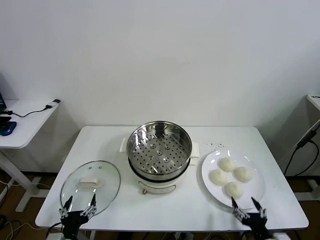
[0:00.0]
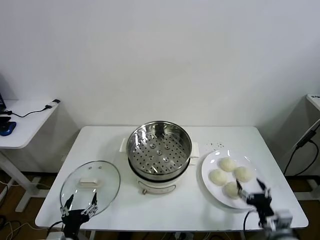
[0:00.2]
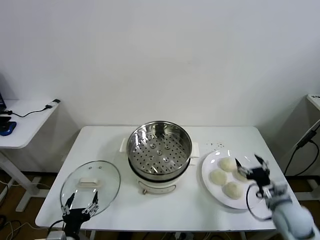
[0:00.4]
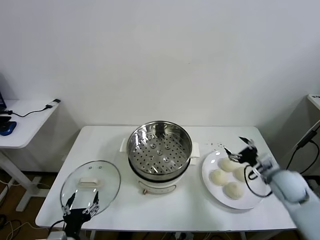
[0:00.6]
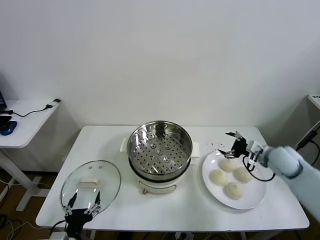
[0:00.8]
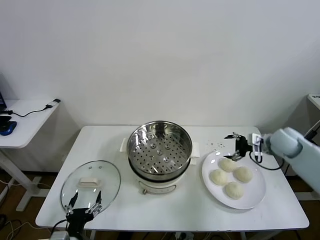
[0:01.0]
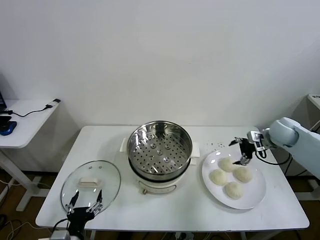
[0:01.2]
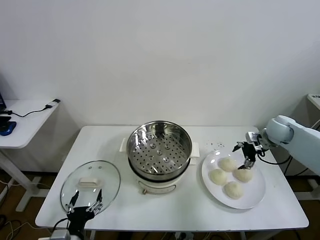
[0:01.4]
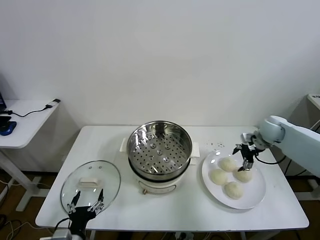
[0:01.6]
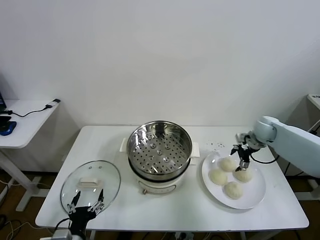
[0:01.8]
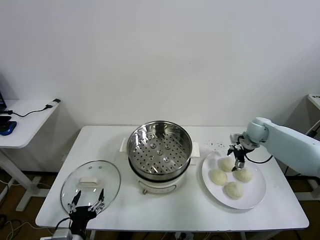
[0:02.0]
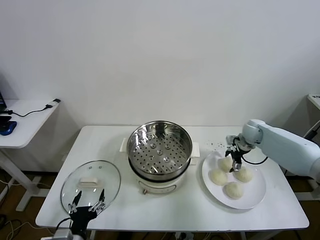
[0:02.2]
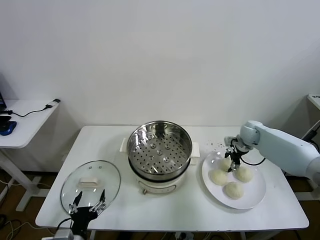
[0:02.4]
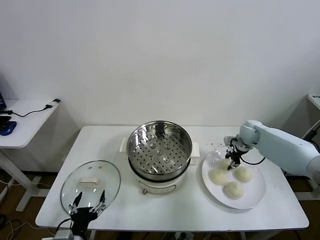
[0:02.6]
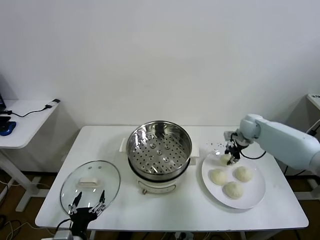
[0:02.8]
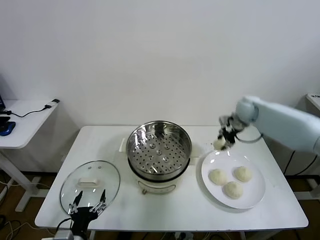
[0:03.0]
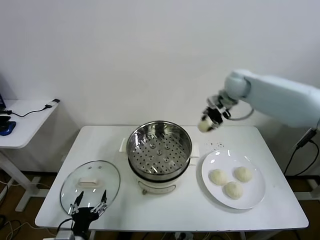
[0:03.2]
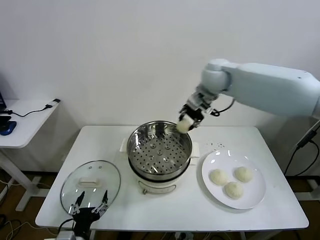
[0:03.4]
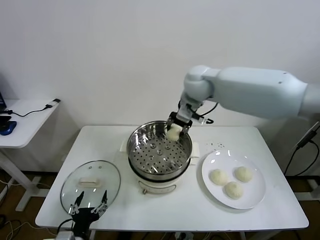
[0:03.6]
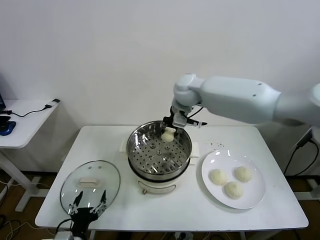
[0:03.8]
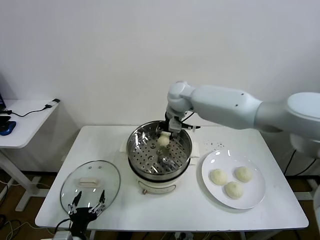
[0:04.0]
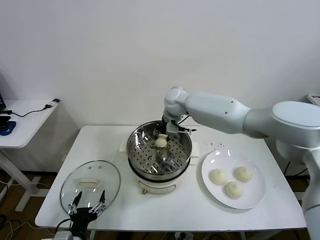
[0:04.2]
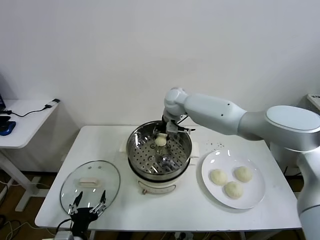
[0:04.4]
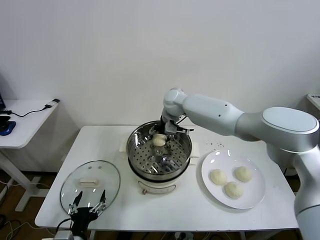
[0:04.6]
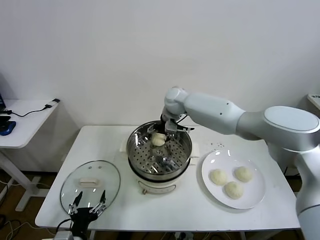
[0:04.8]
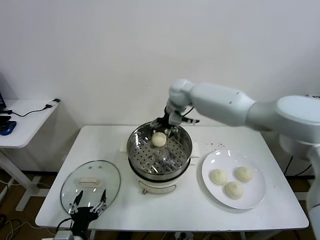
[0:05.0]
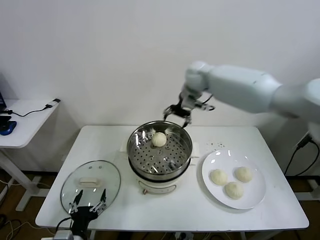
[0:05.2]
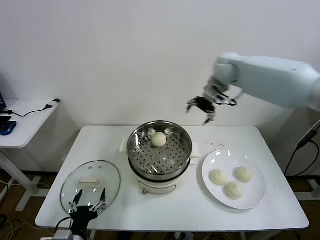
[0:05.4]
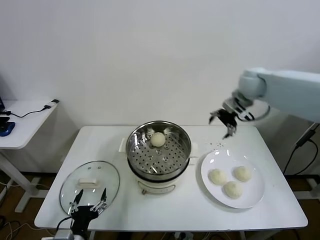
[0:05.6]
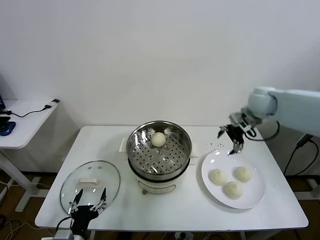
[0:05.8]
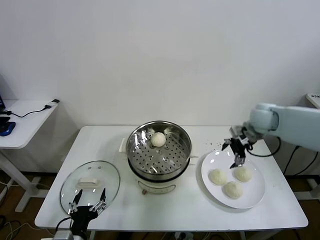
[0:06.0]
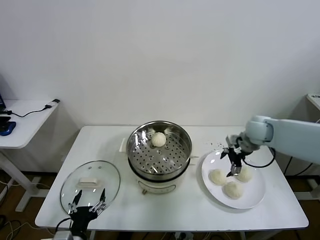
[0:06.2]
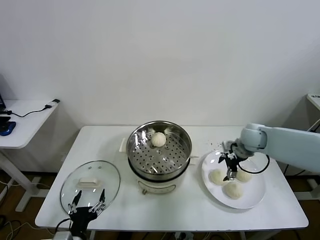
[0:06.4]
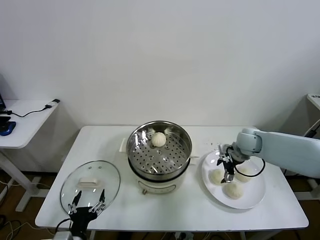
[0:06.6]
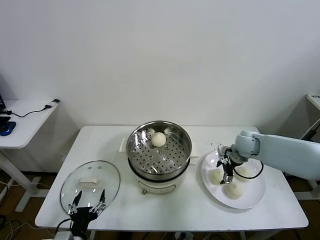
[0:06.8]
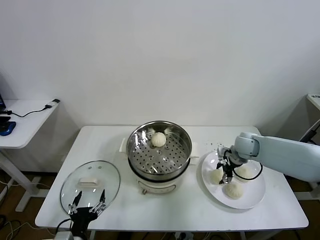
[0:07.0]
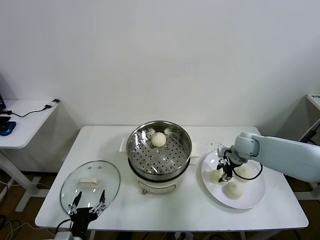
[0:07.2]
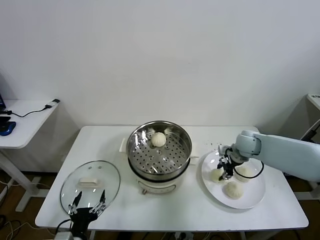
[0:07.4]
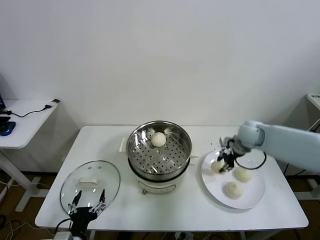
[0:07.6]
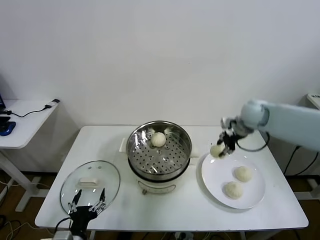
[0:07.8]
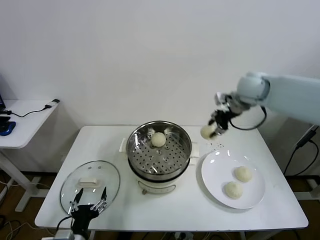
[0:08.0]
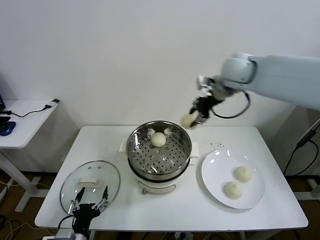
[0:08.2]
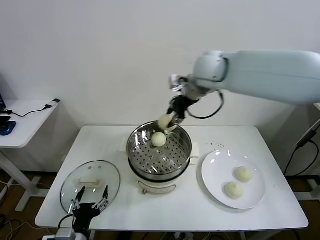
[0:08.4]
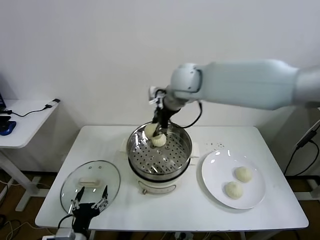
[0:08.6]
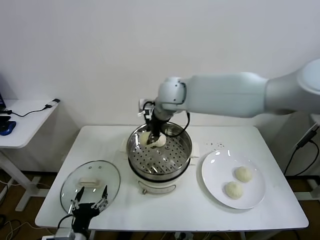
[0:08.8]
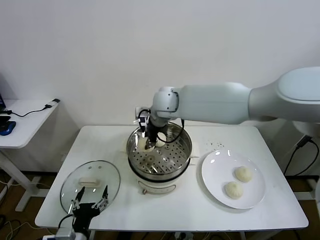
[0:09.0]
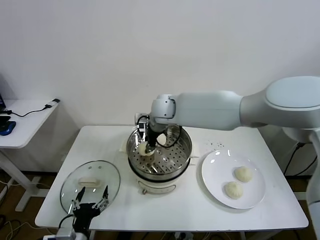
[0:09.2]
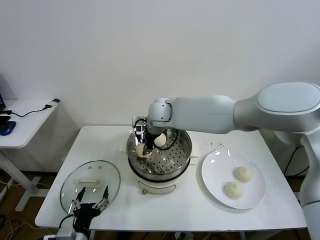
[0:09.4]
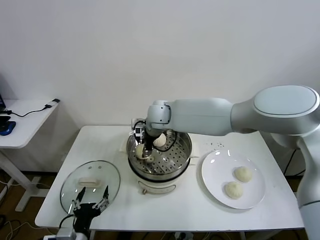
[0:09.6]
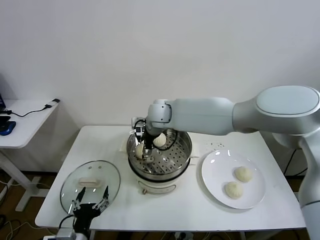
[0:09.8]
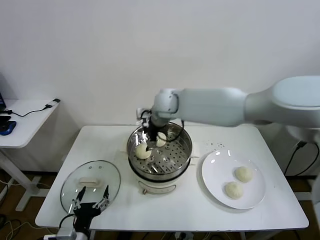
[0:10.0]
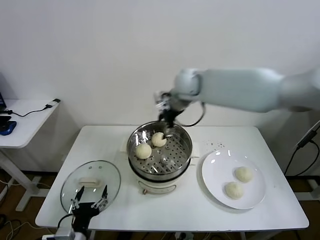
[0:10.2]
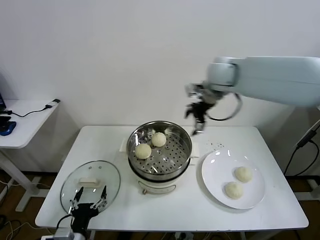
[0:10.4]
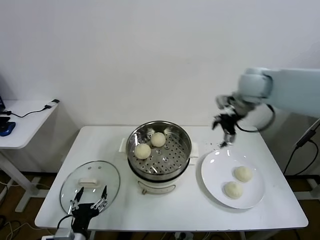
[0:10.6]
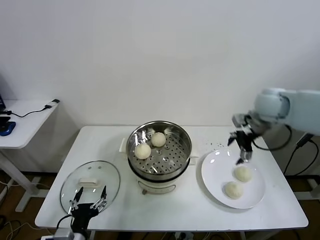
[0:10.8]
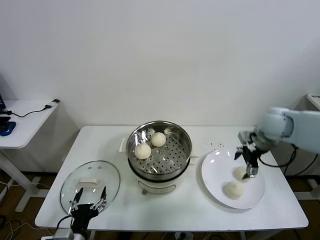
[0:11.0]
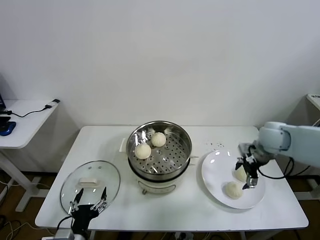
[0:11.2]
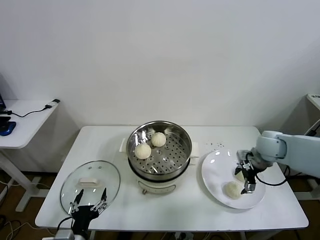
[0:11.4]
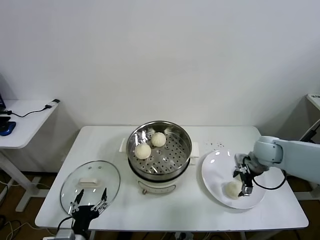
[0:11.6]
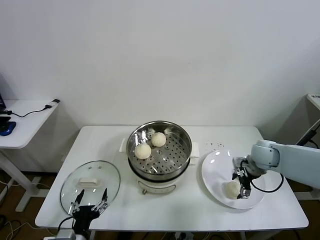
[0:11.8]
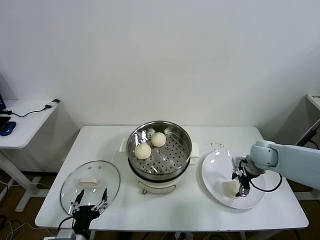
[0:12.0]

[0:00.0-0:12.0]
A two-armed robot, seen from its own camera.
Task of the whole recording: take steamed baozi put them in steamer then cover it.
Step, 0:00.0 to 0:02.4: Grasp the baozi in the plate with right gripper.
Step, 0:02.6 to 0:04.6: Place the baozi on the steamer with right gripper.
Step, 0:05.0 to 0:07.0: Grasp the baozi in the plate with right gripper.
Step, 0:07.4 to 0:09.8: Place the baozi on the steamer with right gripper.
0:01.6 to 0:03.0: The right gripper is displaced upward, to the left and forward by approximately 15 cm, and closes up.
0:03.0 to 0:04.4: The right gripper heads to the left, covering some 25 cm.
0:04.4 to 0:06.0: The right gripper heads to the right, covering approximately 30 cm, and opens.
0:06.0 to 0:07.6: The right gripper closes up.
0:07.6 to 0:09.0: The right gripper is displaced to the left by some 30 cm.
0:09.0 to 0:10.4: The right gripper shifts some 20 cm to the right and upward, and opens up.
0:10.4 to 0:12.0: The right gripper moves downward and to the right, some 30 cm.

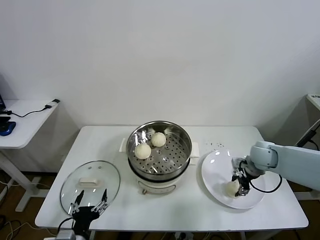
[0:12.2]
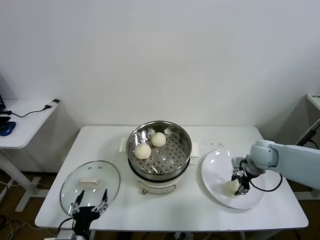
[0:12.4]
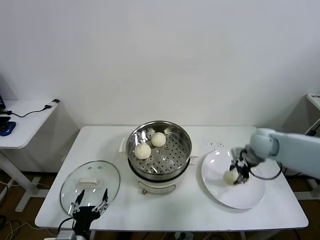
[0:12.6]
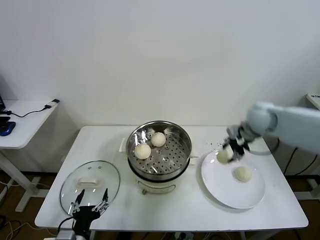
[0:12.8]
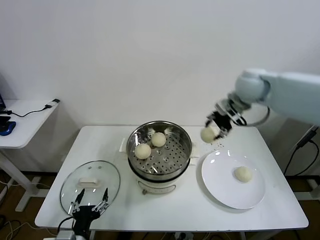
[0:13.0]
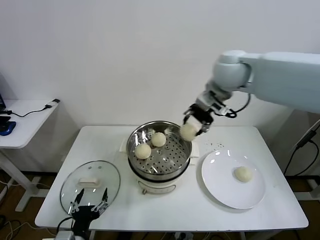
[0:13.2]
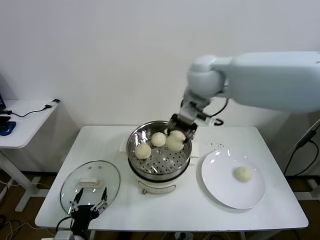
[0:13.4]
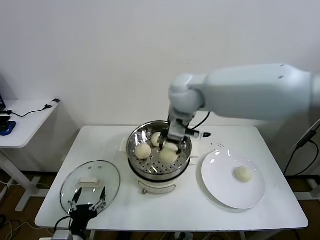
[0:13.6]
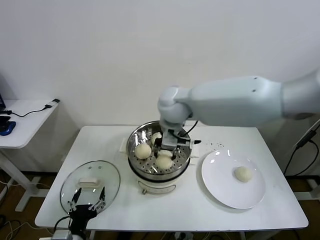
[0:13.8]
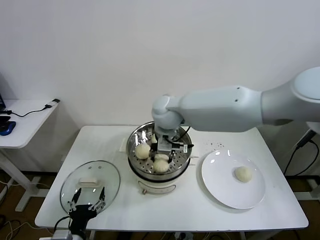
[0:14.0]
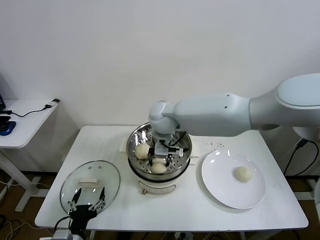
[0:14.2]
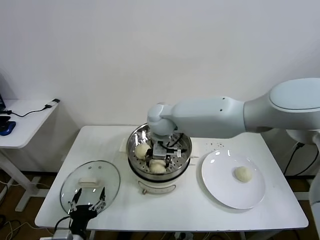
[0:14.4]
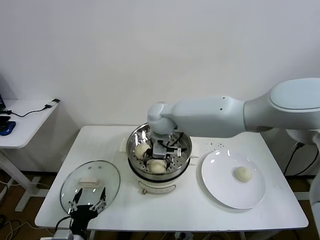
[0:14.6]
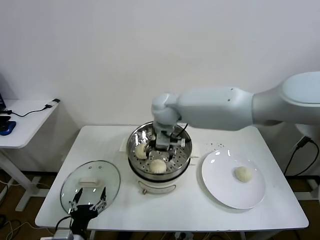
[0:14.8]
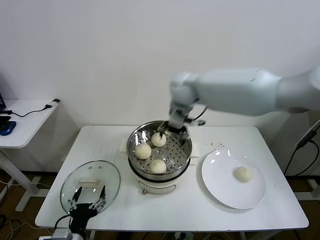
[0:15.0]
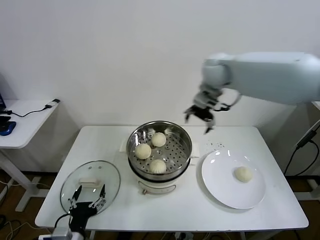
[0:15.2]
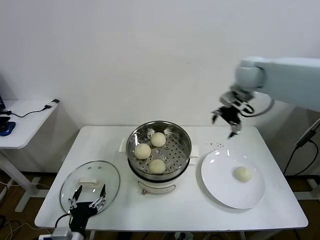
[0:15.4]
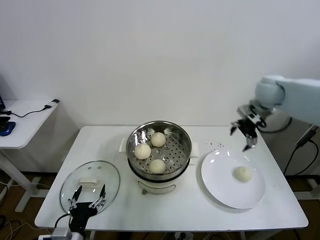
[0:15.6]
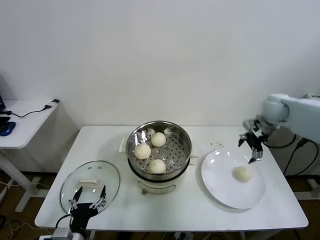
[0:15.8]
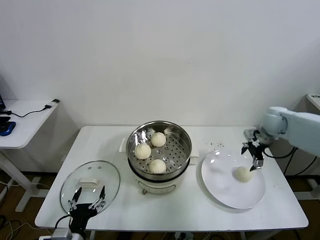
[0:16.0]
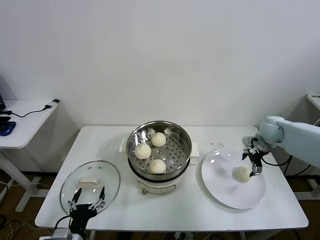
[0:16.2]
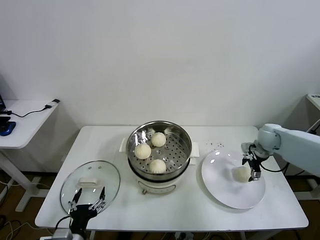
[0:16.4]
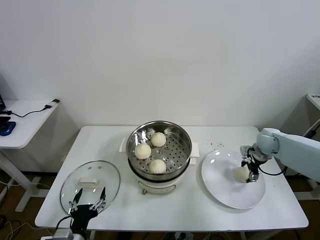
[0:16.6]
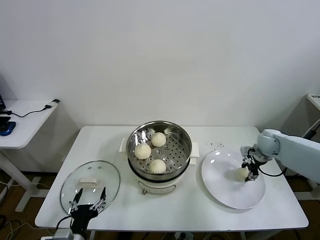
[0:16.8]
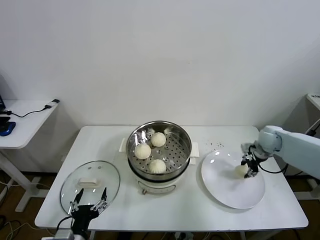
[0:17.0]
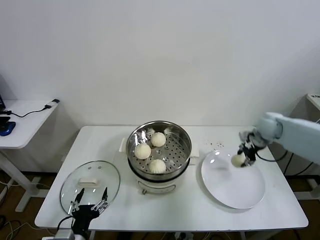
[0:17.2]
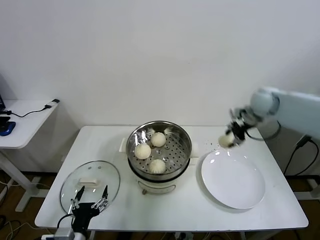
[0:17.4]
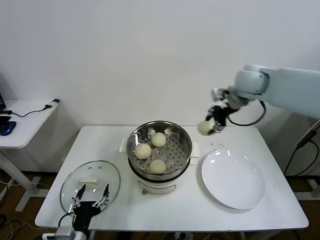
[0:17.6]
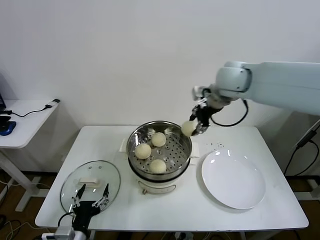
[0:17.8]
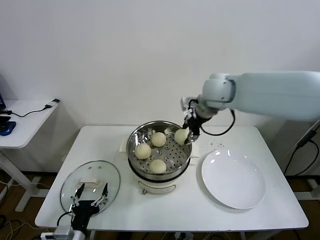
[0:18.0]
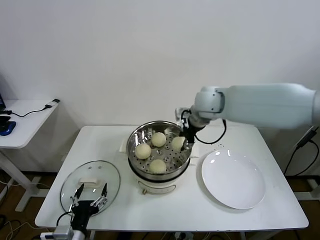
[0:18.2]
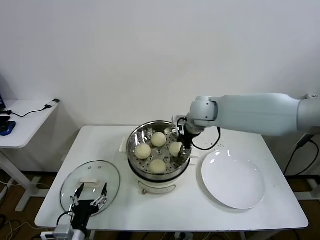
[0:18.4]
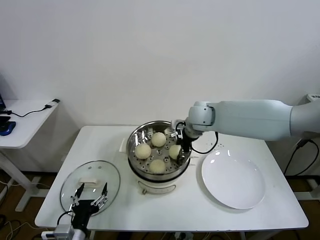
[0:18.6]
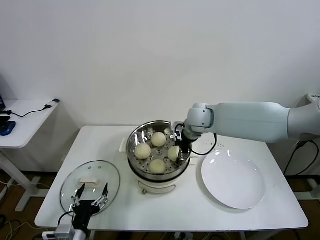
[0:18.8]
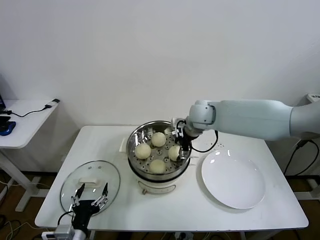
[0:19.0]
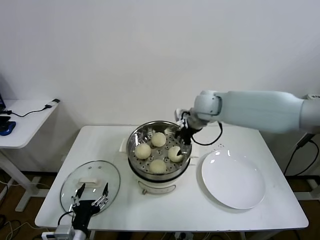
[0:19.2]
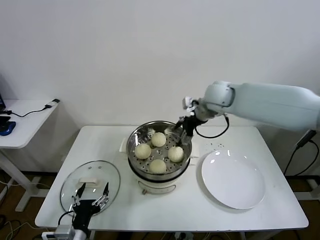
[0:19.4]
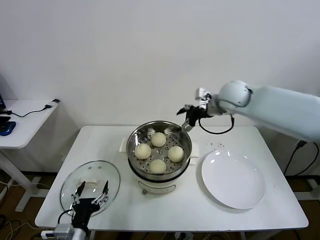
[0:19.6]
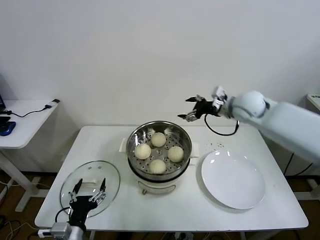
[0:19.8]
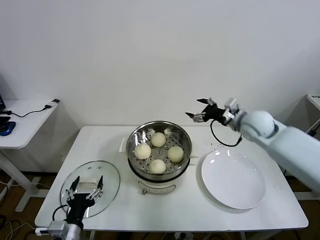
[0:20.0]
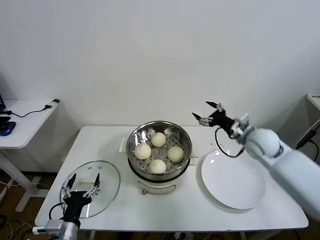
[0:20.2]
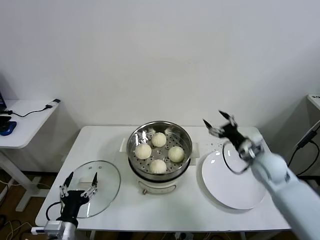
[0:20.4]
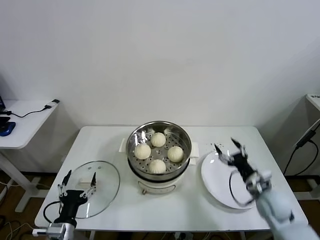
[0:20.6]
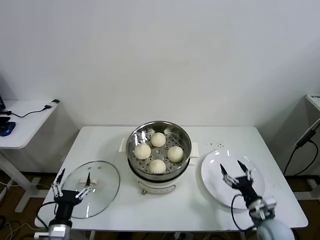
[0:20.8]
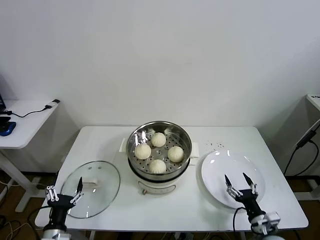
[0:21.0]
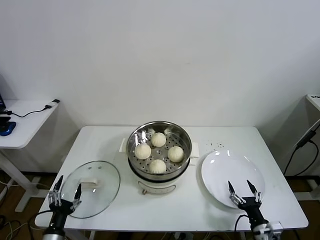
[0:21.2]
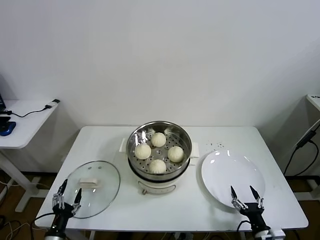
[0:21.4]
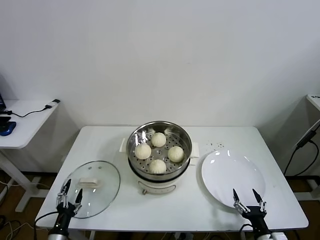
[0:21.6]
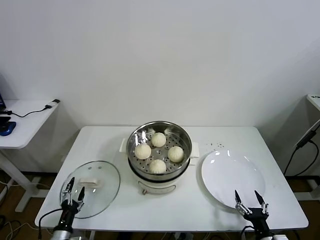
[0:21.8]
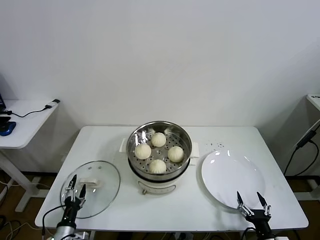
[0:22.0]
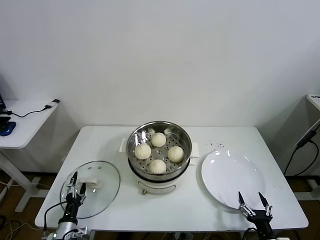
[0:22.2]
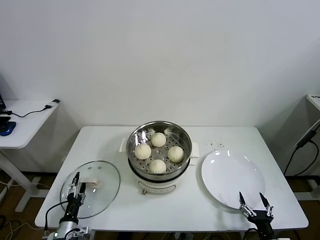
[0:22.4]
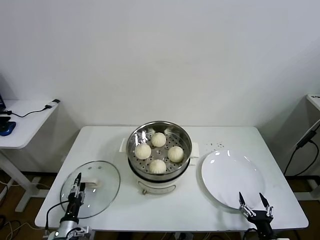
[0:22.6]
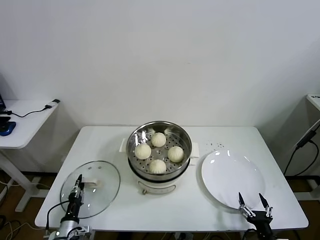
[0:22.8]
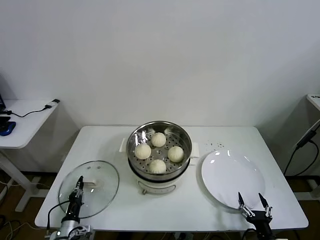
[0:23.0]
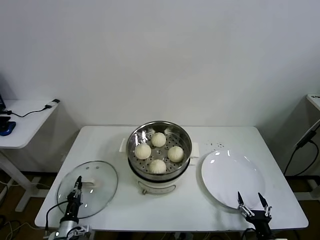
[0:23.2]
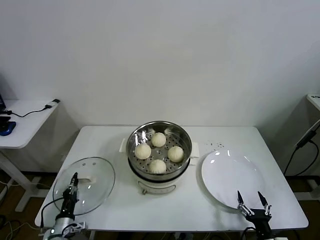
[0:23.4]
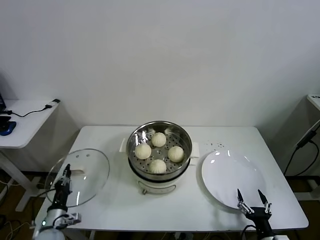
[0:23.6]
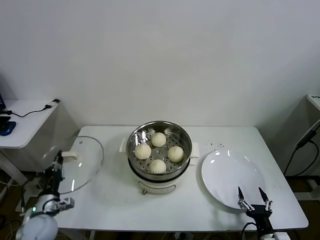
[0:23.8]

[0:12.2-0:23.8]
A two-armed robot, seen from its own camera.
Task of the whole recording: take steamed baozi put them in steamer then cover it.
Step, 0:12.4 to 0:14.6: Place the baozi on the steamer with right gripper.
Step, 0:14.8 to 0:16.6: Grasp the baozi in the plate with right gripper.
Step, 0:17.0 to 0:19.0: Place the baozi on the steamer with right gripper.
Step, 0:19.2 to 0:23.0: Grasp the pot lid with left gripper.
0:12.2 to 0:13.6: The right gripper is displaced to the left and upward by about 40 cm.
0:13.6 to 0:15.0: The right gripper moves forward, about 5 cm, moves approximately 10 cm downward and comes back, and opens.
0:15.0 to 0:16.6: The right gripper moves to the right and downward, roughly 40 cm.
0:16.6 to 0:18.0: The right gripper moves to the left and upward, about 35 cm, and closes its fingers.
0:18.0 to 0:19.4: The right gripper opens its fingers.
0:19.4 to 0:21.0: The right gripper is displaced downward, backward and to the right by approximately 50 cm; the left gripper goes approximately 10 cm to the left and downward.
0:21.0 to 0:22.4: The left gripper moves downward, some 10 cm. The right gripper moves backward, about 10 cm.
0:22.4 to 0:23.8: The left gripper travels upward by approximately 10 cm, and closes.
